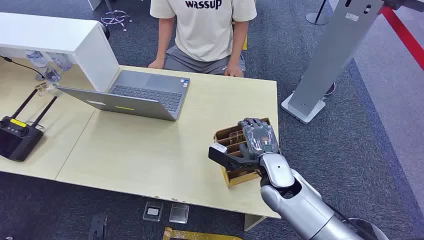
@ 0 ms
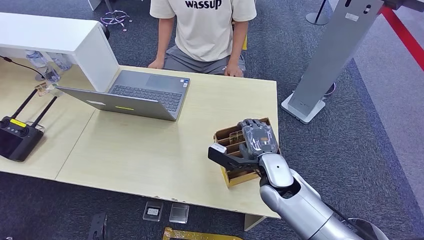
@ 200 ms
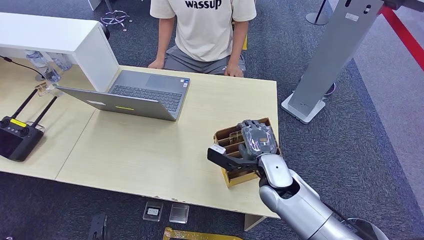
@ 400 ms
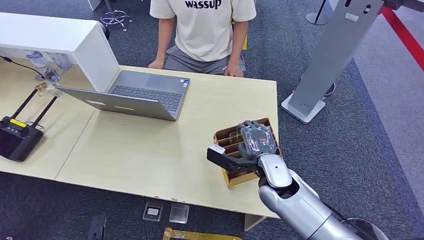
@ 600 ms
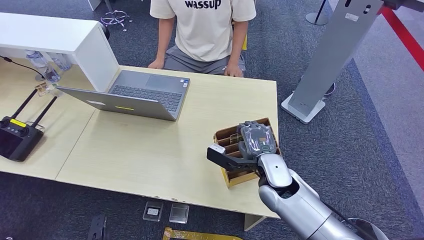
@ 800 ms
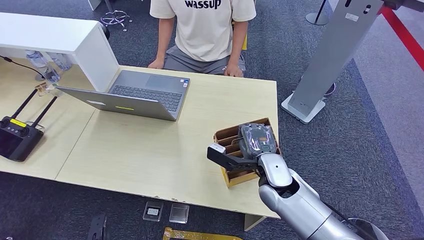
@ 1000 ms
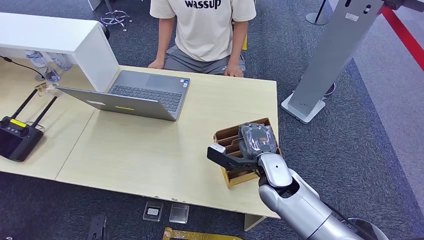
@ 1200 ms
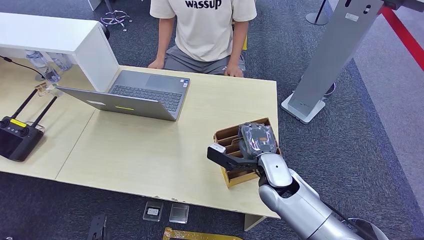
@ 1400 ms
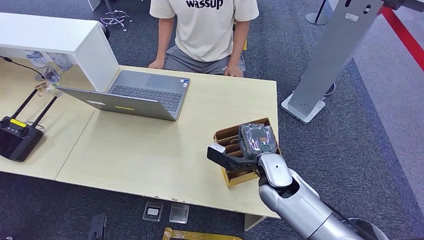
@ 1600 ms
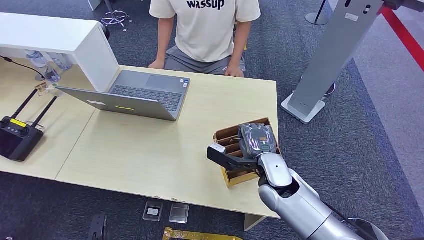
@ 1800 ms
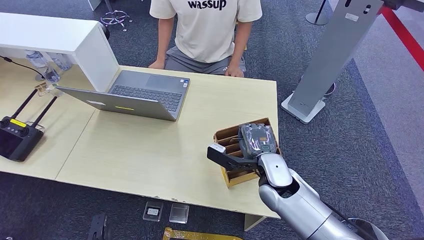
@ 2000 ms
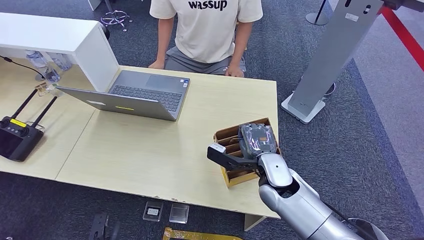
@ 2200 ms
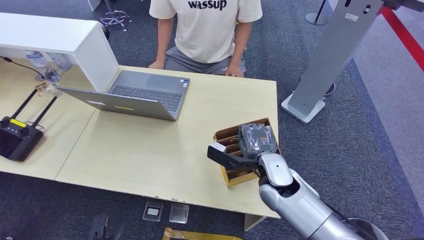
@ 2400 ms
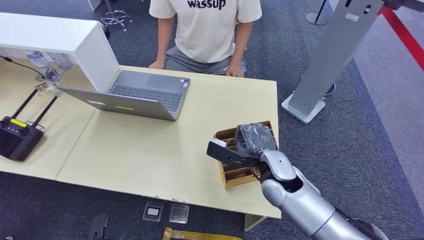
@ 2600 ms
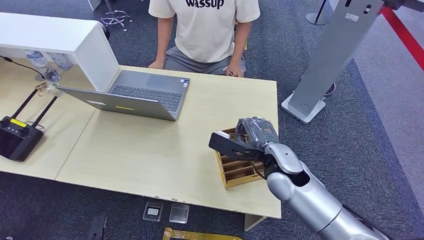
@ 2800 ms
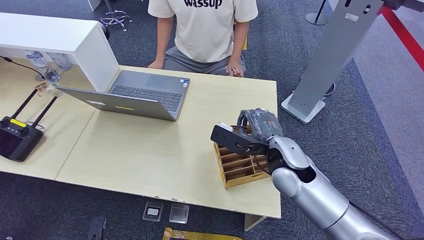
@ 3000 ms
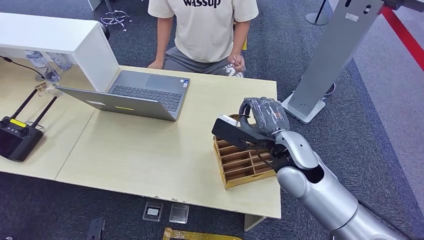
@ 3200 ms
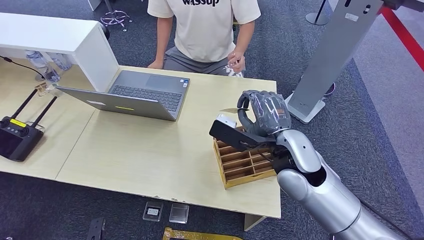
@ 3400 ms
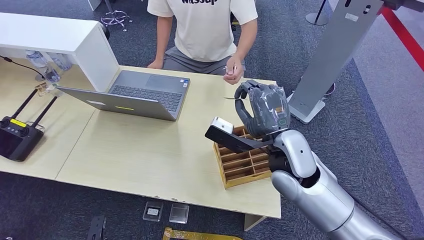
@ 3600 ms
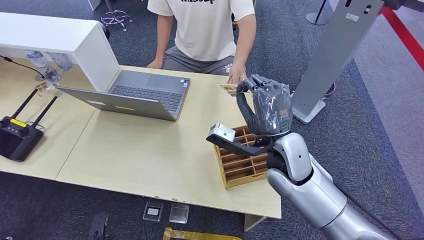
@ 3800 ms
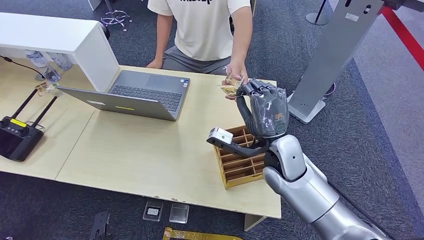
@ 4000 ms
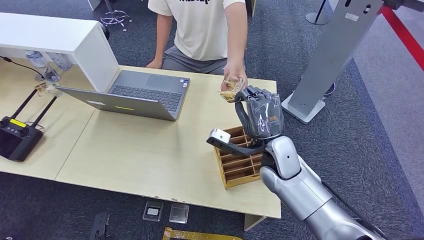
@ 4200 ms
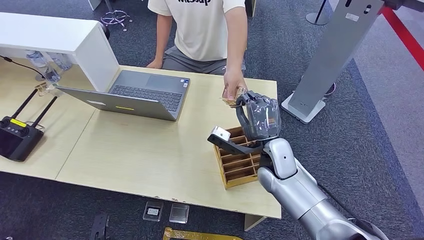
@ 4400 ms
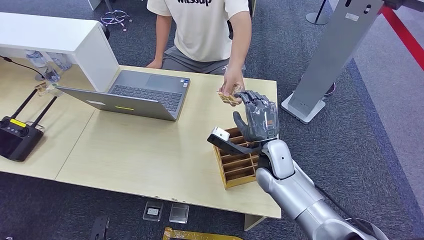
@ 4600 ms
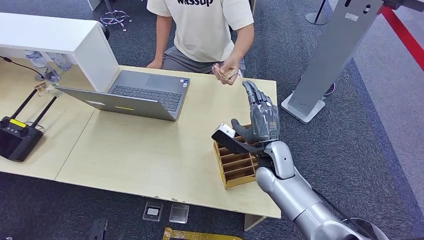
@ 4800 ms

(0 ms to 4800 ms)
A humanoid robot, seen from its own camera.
Step, 0 ms - 2800 ms: Pick up the key card from the card box.
Step, 3200 ms - 4800 ms: Hand the key card to the target.
1600 ms - 3200 ms: The right hand heads upward, covering roughly 10 cm.
3200 ms - 4800 ms: The right hand goes roughly 10 cm downward.
